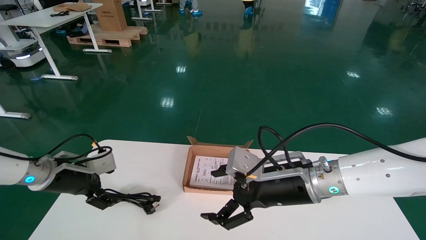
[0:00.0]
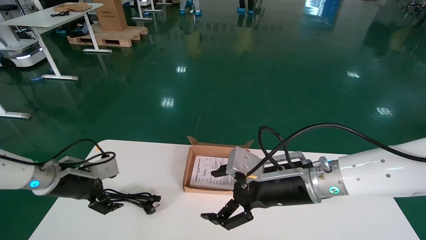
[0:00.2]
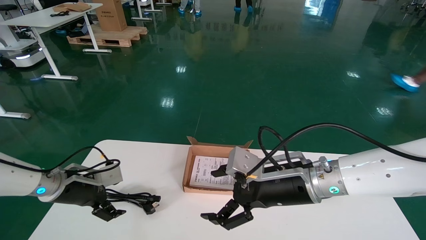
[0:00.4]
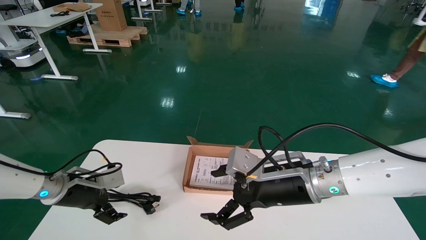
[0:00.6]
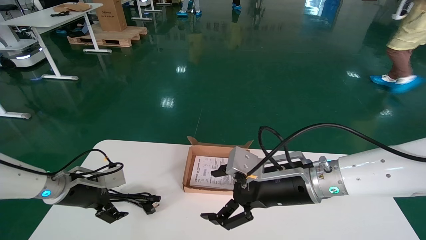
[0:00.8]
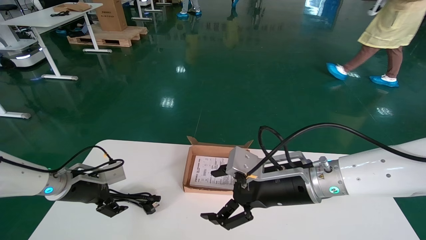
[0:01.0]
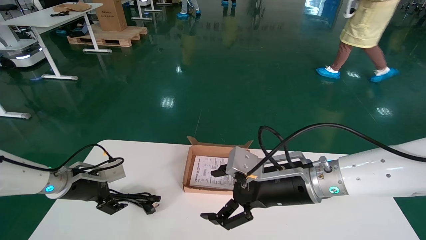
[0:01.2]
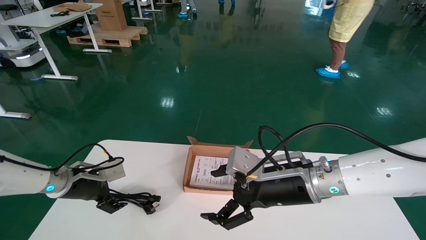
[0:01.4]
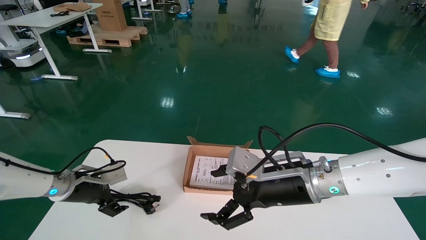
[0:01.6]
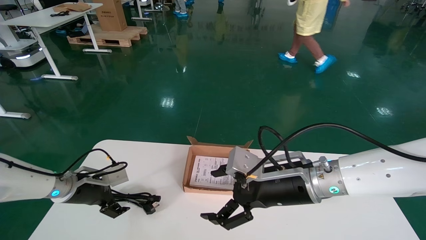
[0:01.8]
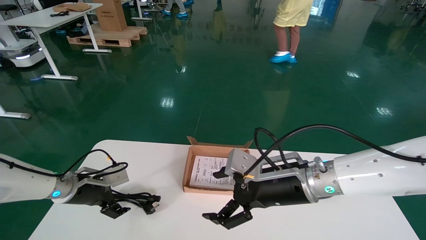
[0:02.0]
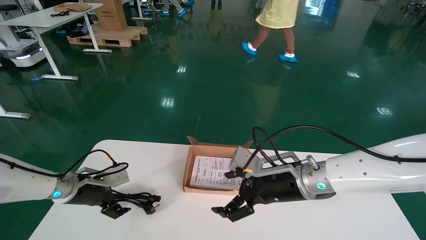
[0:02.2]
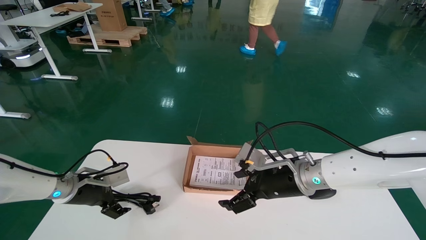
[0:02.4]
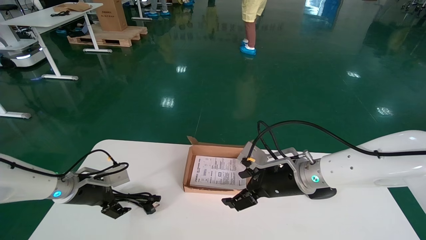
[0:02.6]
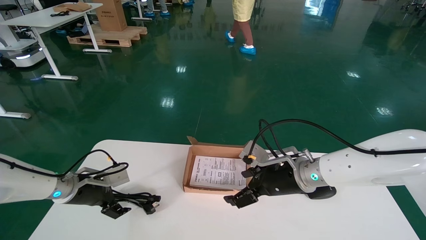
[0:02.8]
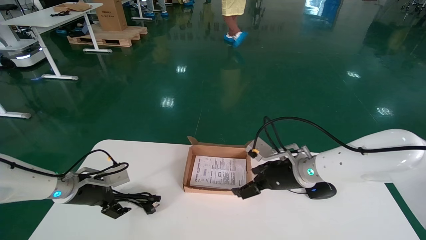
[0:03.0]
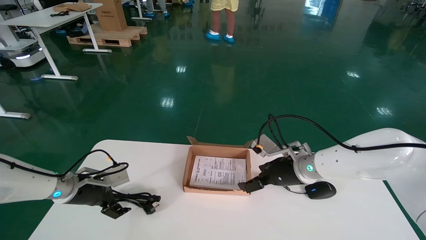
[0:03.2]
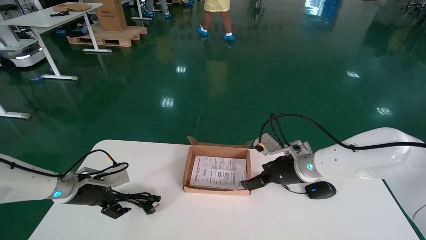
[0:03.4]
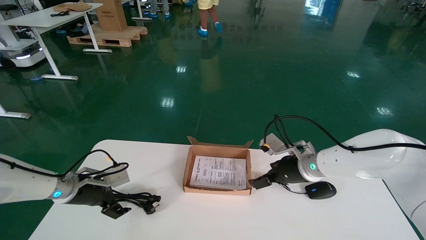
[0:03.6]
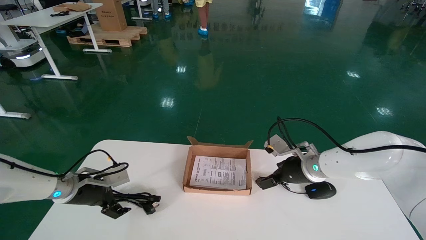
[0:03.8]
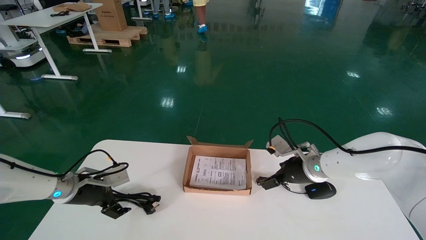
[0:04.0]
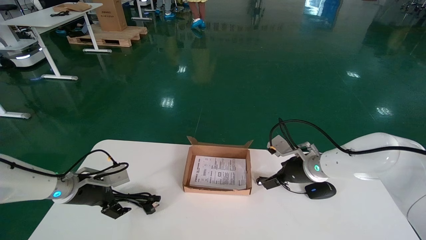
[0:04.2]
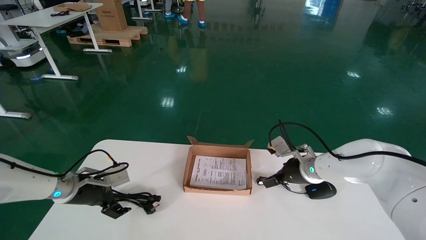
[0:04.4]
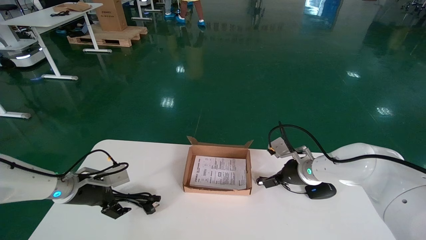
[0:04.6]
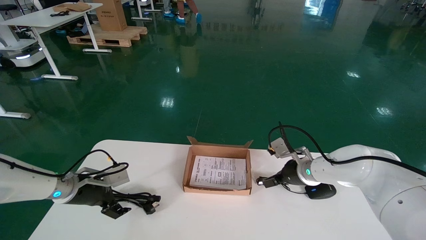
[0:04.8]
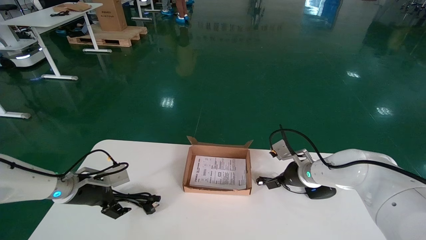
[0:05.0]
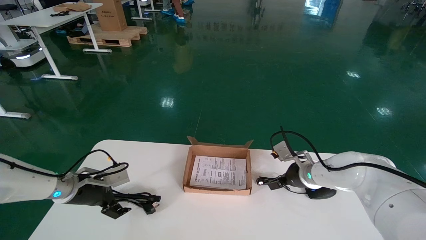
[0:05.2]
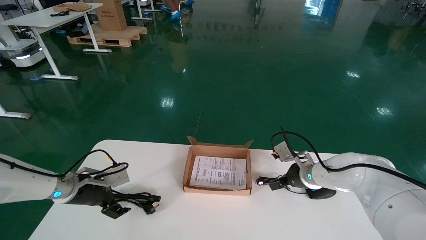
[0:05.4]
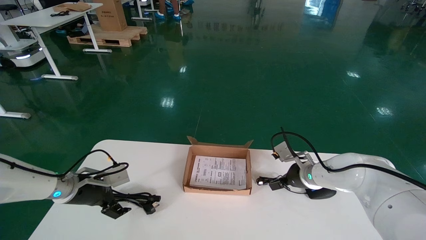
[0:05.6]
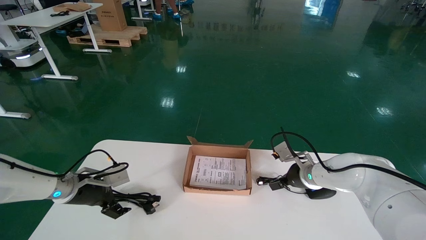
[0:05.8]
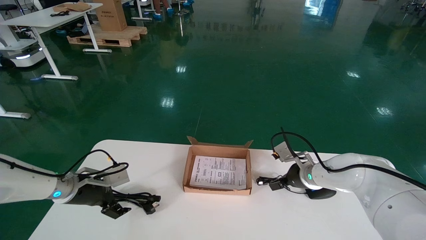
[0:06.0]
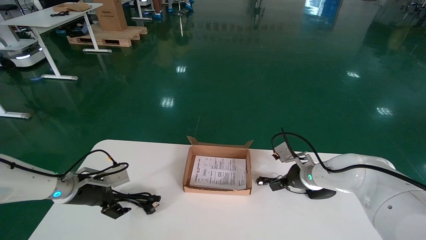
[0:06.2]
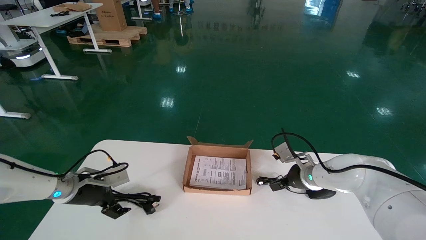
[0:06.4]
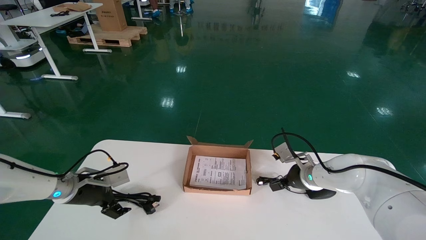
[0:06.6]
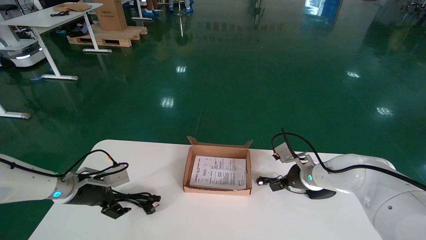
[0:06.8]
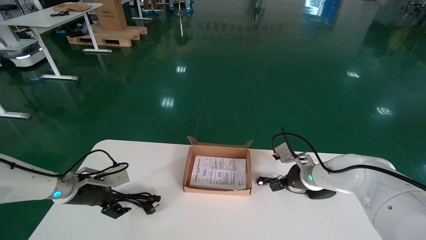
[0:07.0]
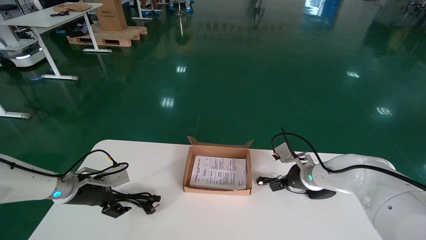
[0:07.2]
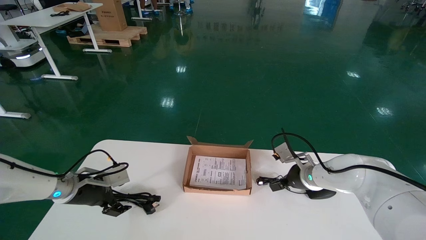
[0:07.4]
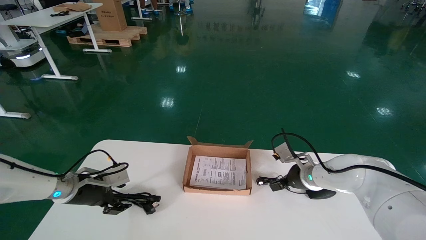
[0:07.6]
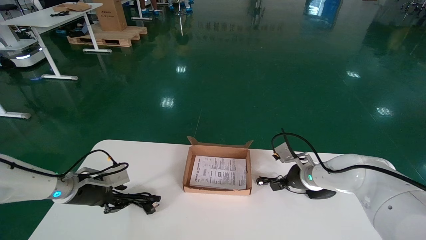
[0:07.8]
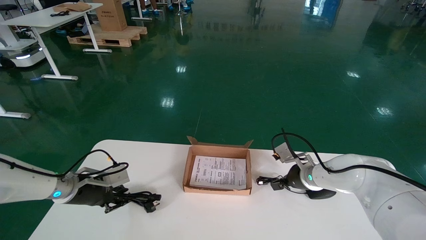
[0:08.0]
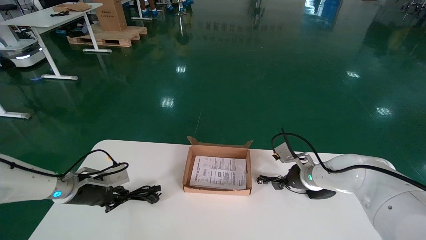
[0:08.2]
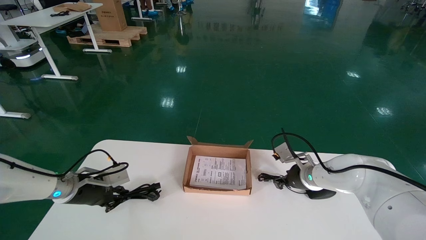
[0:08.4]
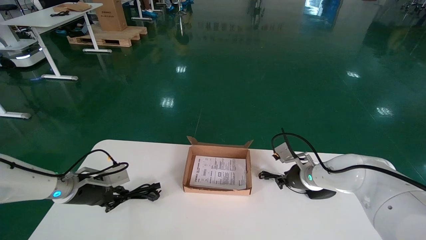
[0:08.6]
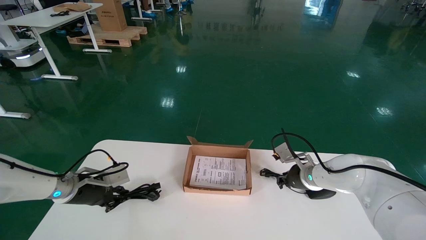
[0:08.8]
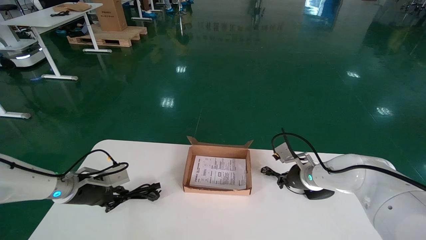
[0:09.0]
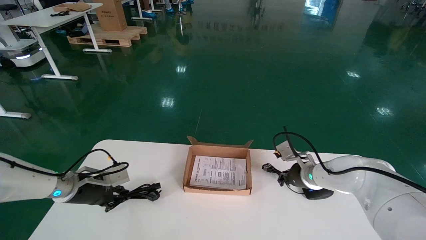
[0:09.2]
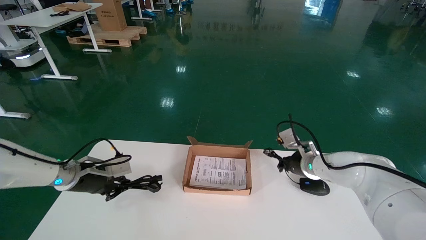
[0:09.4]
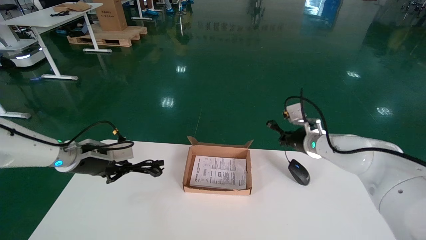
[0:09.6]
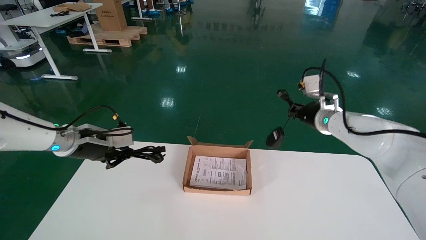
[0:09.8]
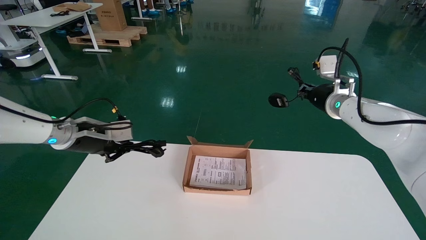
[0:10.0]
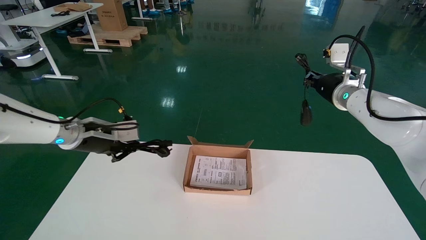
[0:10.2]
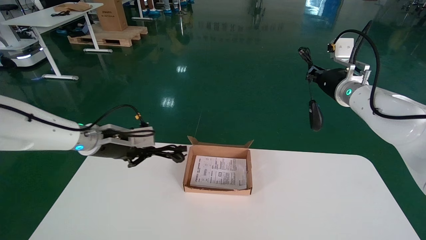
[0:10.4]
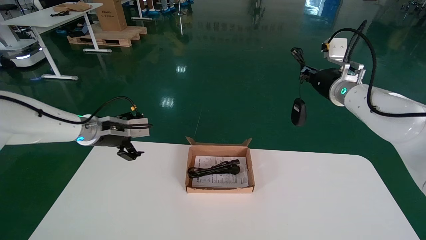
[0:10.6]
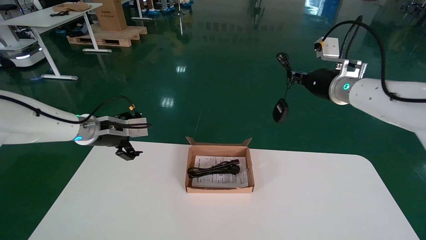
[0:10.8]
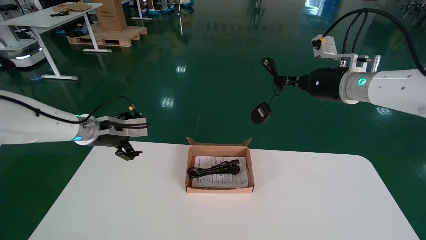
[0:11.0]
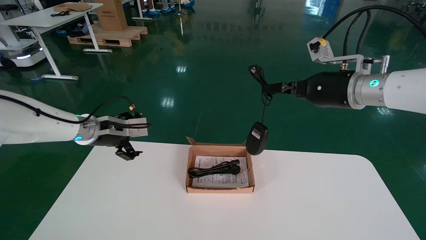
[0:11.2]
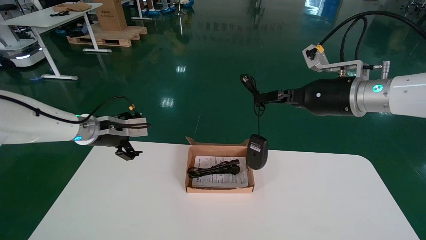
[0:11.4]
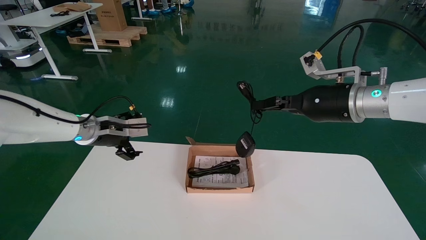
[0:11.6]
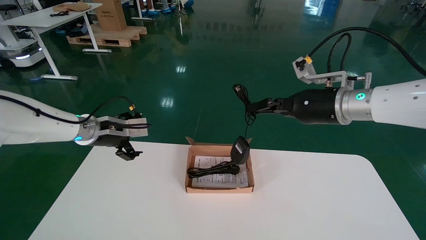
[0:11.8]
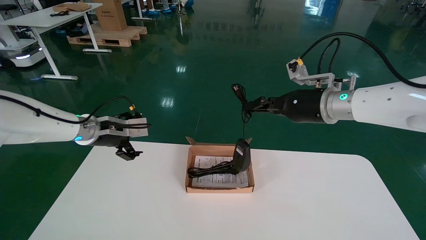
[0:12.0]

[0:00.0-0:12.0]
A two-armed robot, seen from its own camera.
Step, 0:00.0 to 0:05.8: Place the mouse and power cord into the box.
0:00.0 to 0:01.6: The left gripper moves downward, some 5 cm.
0:01.6 to 0:03.0: The right gripper is displaced forward by some 5 cm.
0:03.0 to 0:04.4: The right gripper is displaced forward and to the right by about 10 cm.
0:04.4 to 0:06.0: The right gripper changes place by approximately 5 cm.
0:06.0 to 0:07.6: Neither gripper changes place.
0:07.6 to 0:09.0: The left gripper closes its fingers; the right gripper closes up.
0:09.0 to 0:10.4: Both grippers move upward, approximately 15 cm. The right gripper closes up.
0:10.4 to 0:12.0: The left gripper travels to the right by some 15 cm.

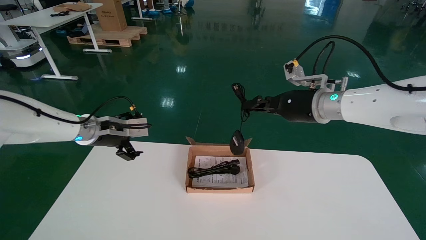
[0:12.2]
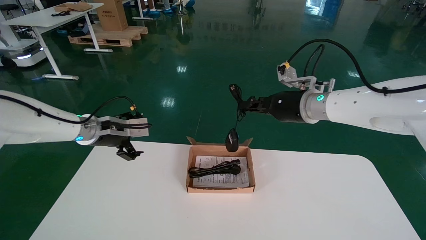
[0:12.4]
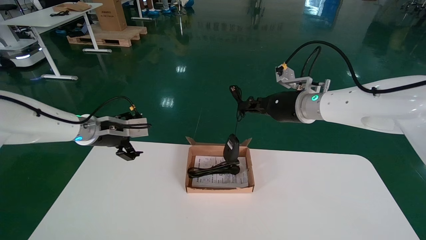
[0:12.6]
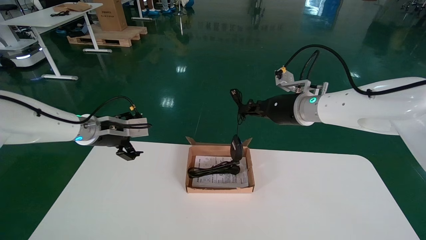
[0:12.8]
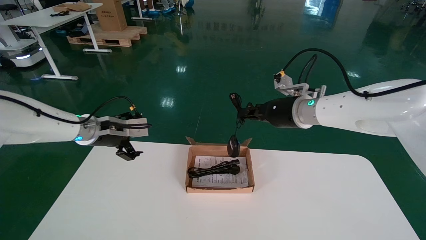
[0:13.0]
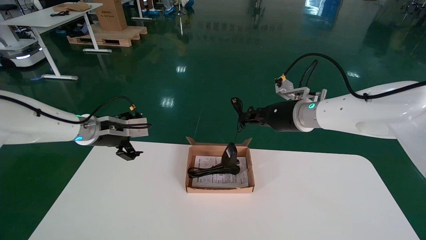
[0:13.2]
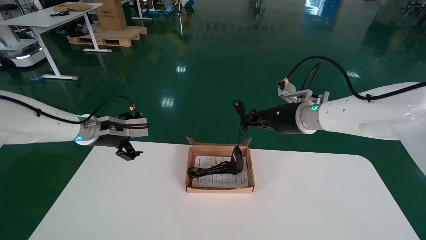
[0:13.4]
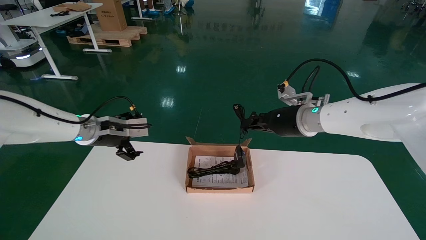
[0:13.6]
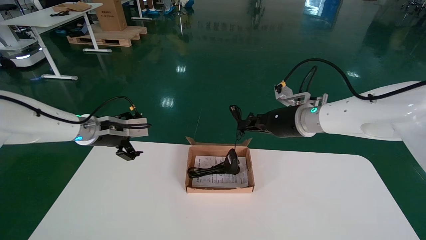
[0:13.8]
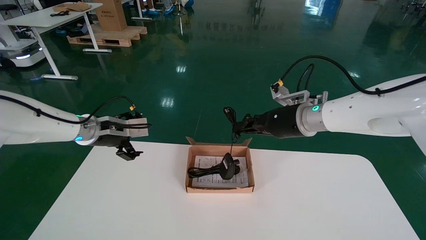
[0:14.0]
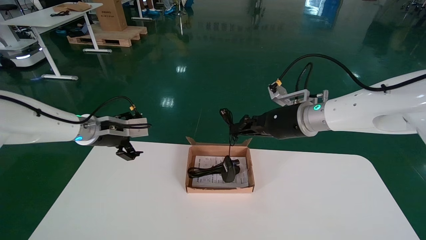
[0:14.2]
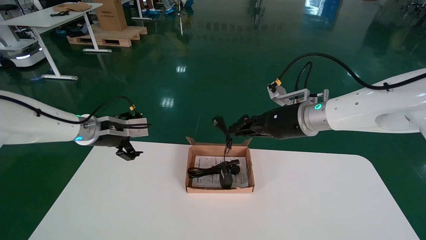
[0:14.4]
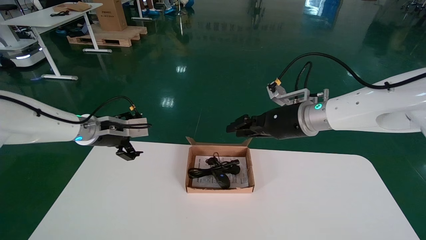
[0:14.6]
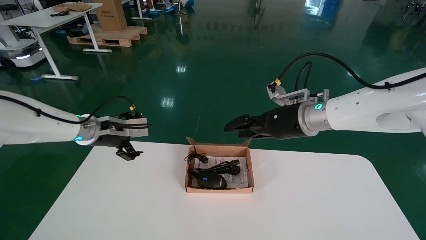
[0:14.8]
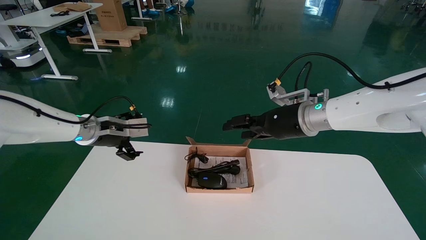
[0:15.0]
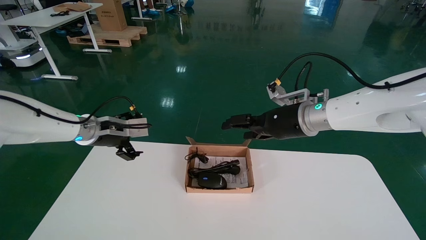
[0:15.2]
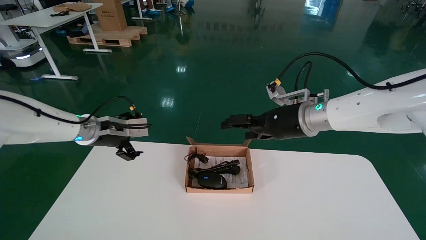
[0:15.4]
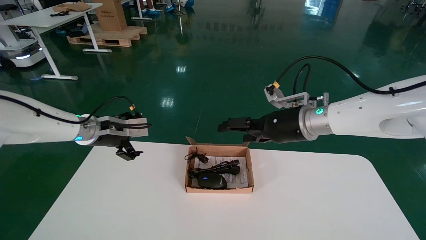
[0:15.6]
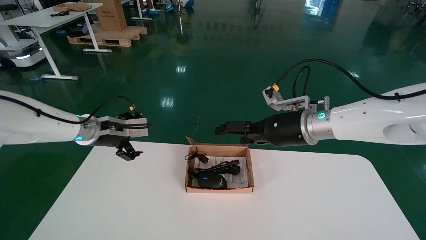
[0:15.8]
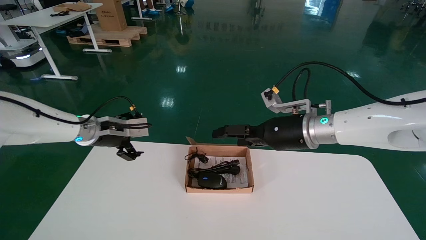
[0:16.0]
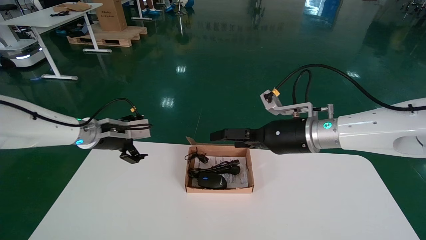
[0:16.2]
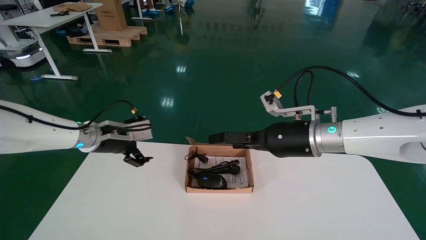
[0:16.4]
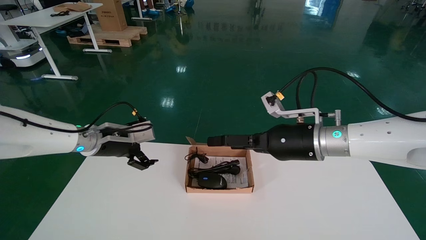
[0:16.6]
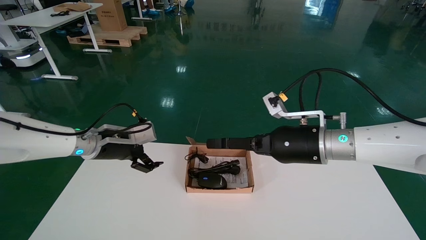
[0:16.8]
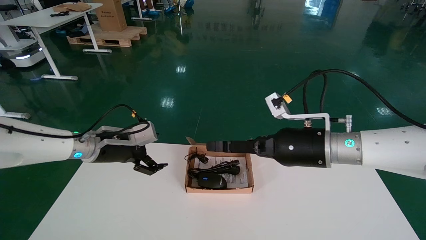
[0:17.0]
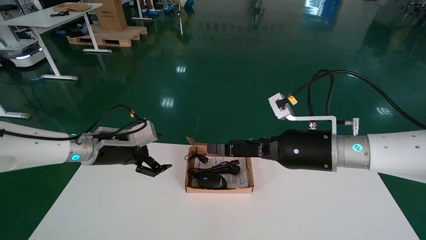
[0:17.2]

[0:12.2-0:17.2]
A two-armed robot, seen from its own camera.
0:12.2 to 0:13.8: The left gripper shifts some 5 cm to the right.
0:13.8 to 0:15.6: The right gripper is displaced backward by about 5 cm, while the left gripper goes approximately 20 cm to the left, and opens its fingers.
0:15.6 to 0:17.2: The right gripper shifts roughly 10 cm to the left.
